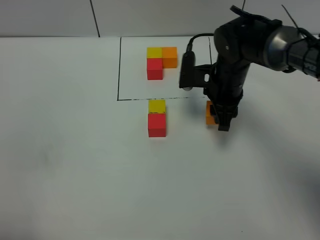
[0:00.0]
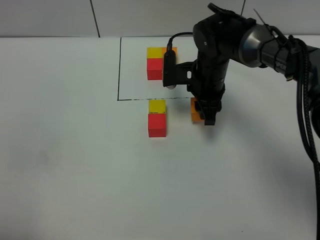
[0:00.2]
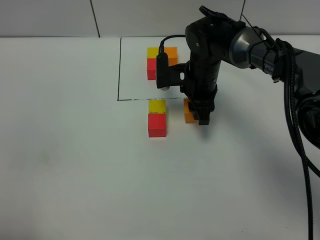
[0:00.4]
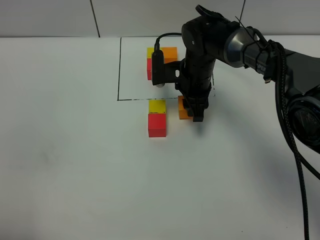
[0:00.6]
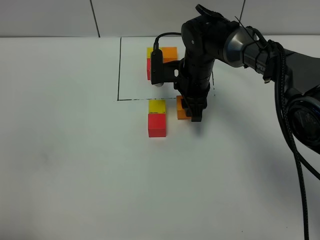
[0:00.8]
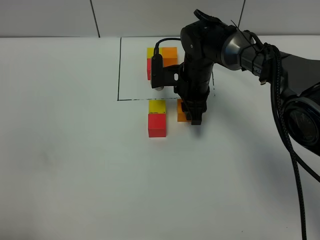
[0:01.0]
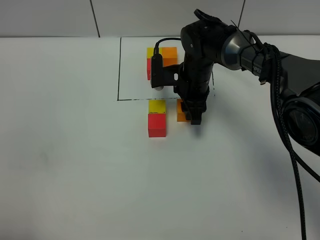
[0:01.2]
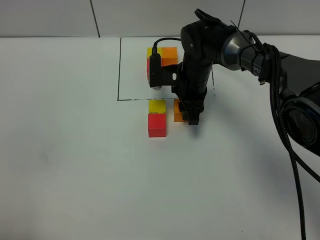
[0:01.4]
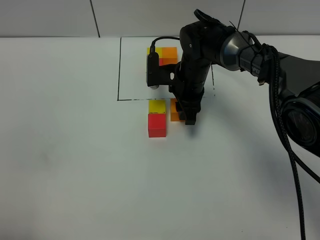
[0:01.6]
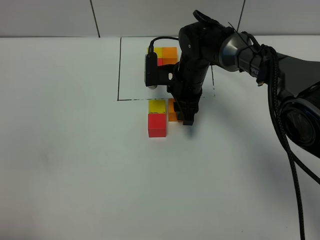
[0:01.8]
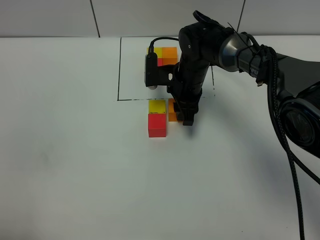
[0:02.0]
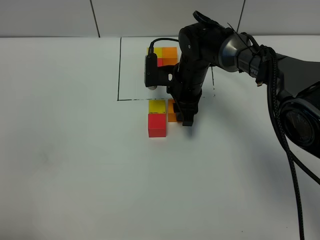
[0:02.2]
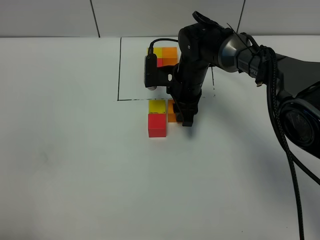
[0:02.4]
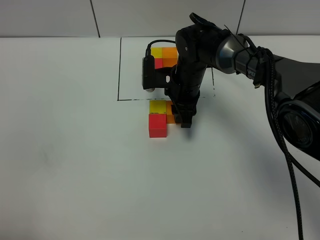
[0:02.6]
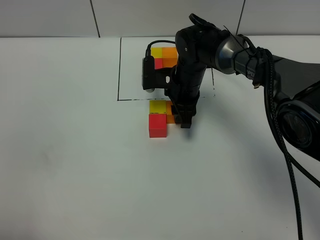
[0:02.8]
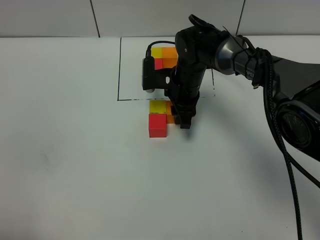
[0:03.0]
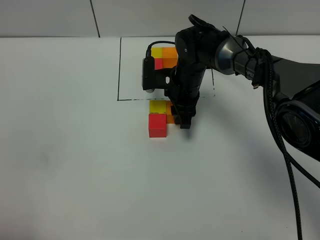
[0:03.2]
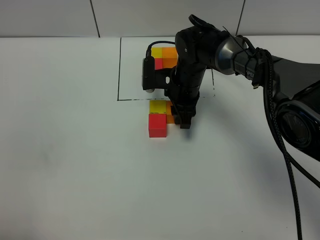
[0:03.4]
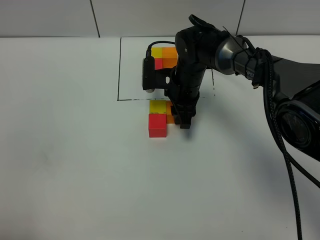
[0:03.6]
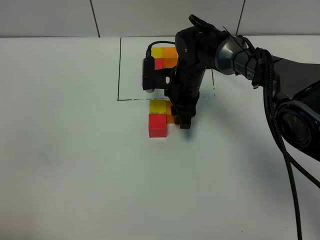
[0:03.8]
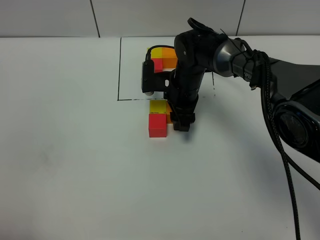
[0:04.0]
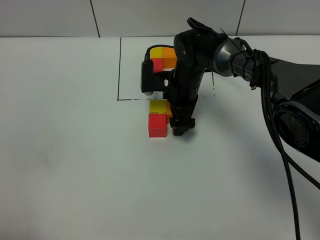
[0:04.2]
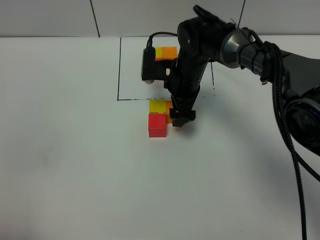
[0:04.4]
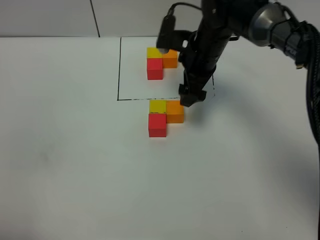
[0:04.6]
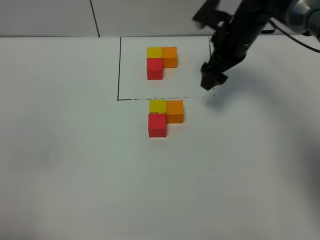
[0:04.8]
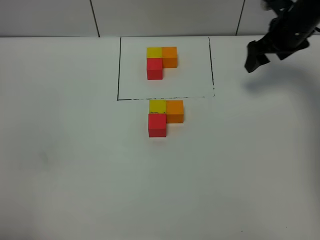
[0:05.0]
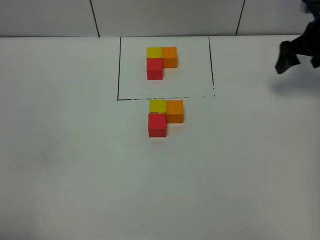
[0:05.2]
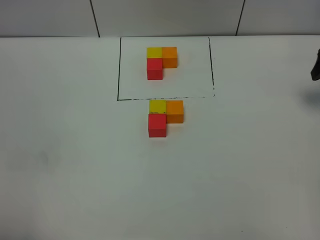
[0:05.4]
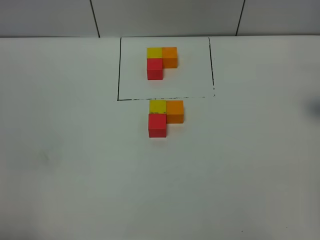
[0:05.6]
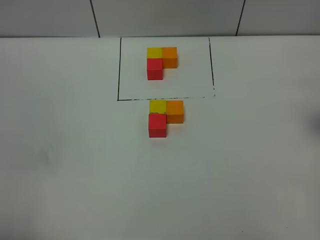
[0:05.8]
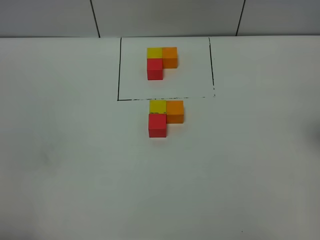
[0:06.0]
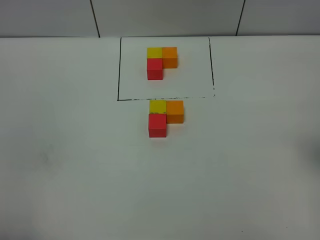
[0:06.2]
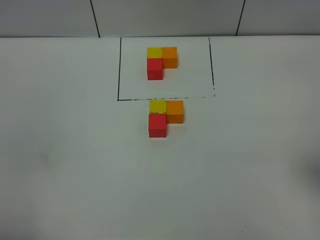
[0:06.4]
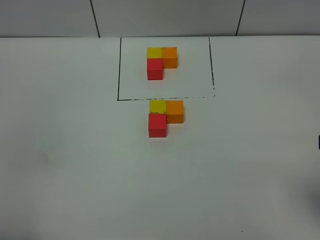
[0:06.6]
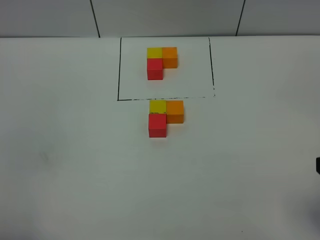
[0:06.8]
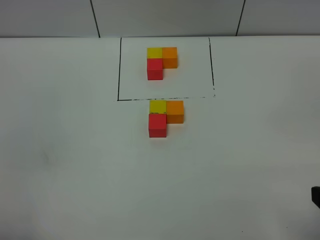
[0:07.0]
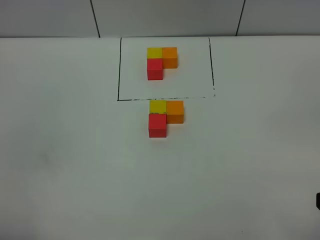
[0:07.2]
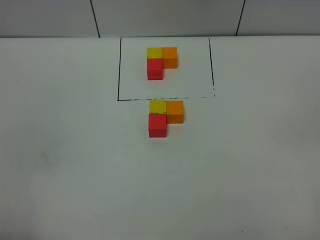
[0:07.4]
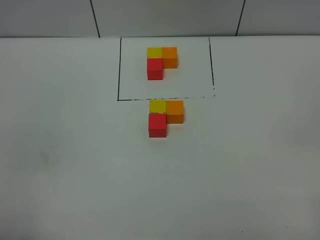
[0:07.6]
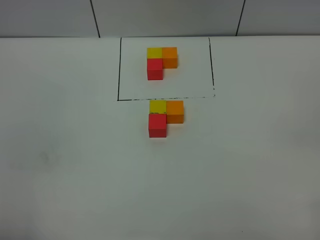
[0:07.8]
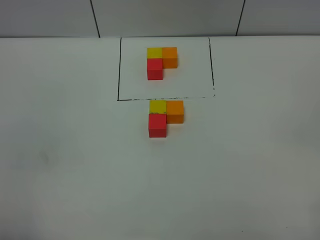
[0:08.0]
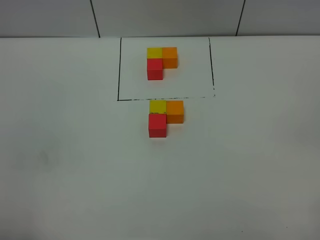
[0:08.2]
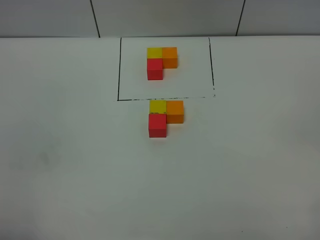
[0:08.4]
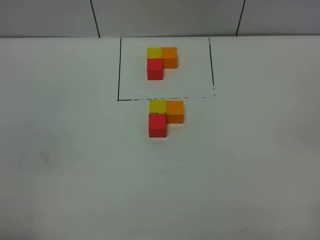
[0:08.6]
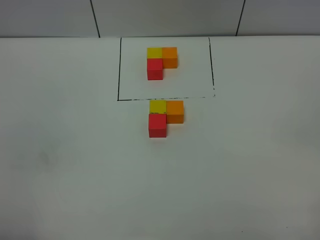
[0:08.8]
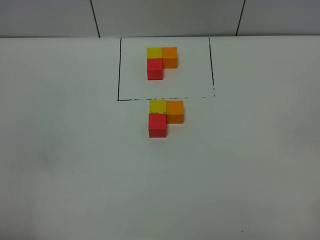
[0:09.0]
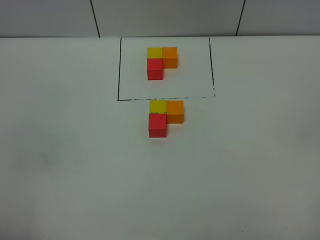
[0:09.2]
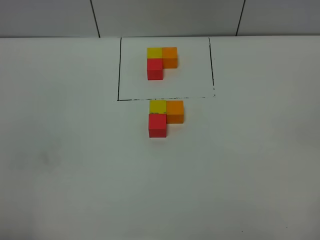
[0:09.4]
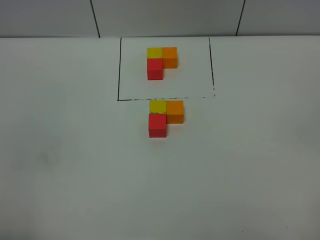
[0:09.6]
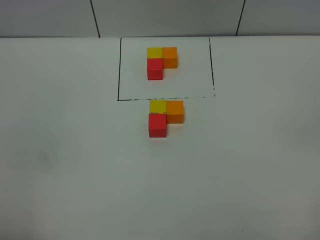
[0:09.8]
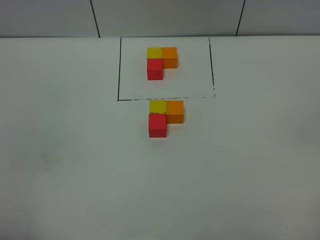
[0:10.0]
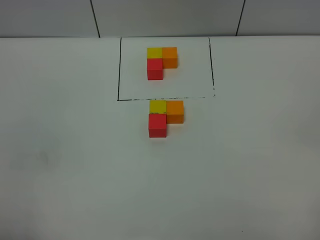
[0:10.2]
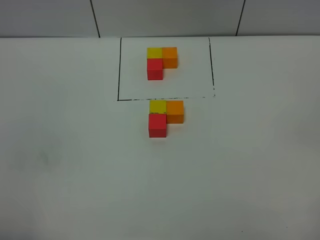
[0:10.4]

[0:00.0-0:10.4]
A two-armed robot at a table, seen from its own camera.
Task of the whole recording: According to the building block template in front, assemble the scattered blocks together.
Step, 0:00.0 to 0:04.4: Put the orange build block on the right of the yellow build block.
0:00.0 to 0:01.4: The right gripper changes place by roughly 5 cm.
0:01.4 to 0:03.0: The grippers make only small movements.
0:03.0 to 0:04.4: The right gripper opens its fingers.
0:04.4 to 0:06.0: The right gripper shifts some 35 cm to the right, backward and upward.
0:09.0 to 0:10.4: Both grippers stay put.
